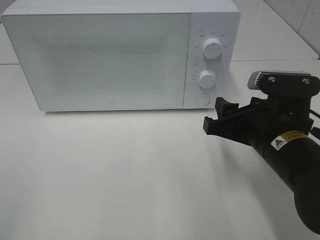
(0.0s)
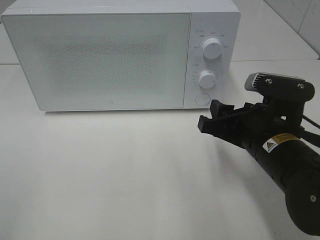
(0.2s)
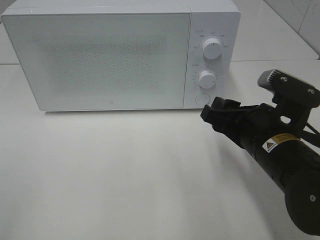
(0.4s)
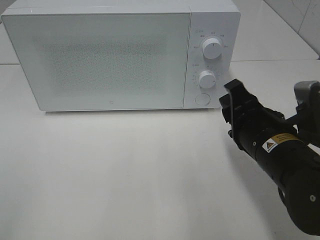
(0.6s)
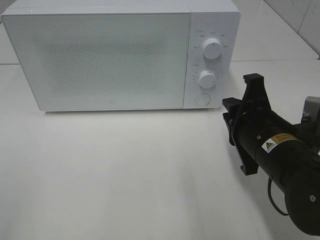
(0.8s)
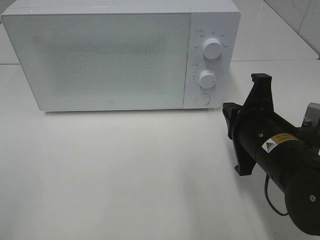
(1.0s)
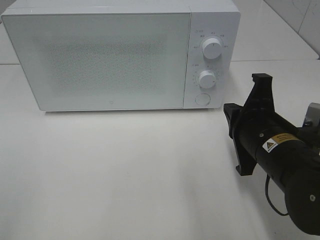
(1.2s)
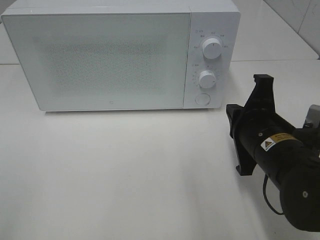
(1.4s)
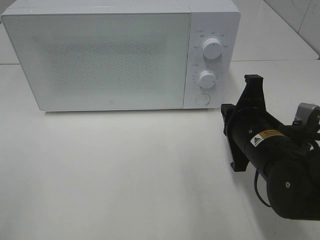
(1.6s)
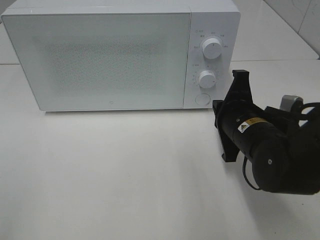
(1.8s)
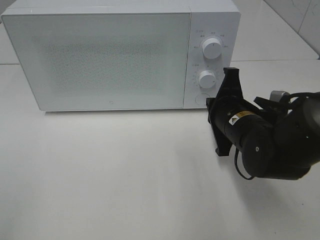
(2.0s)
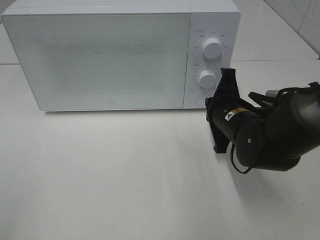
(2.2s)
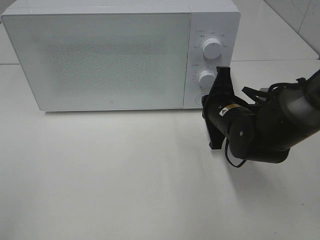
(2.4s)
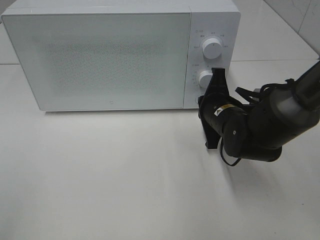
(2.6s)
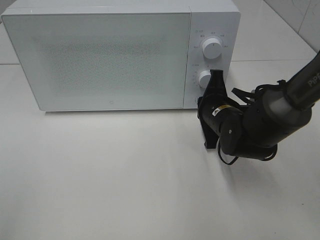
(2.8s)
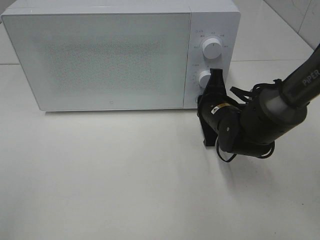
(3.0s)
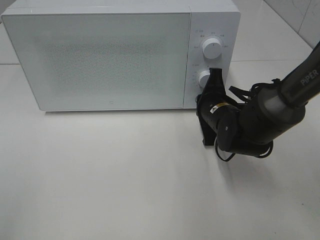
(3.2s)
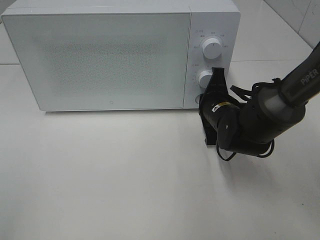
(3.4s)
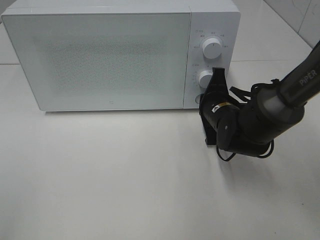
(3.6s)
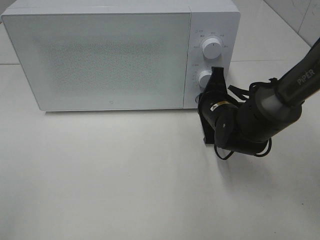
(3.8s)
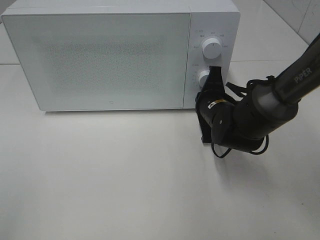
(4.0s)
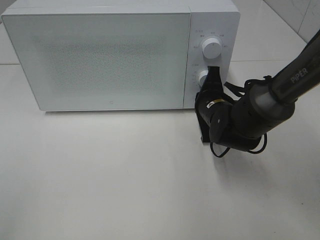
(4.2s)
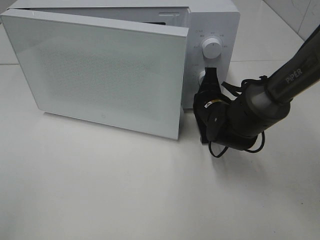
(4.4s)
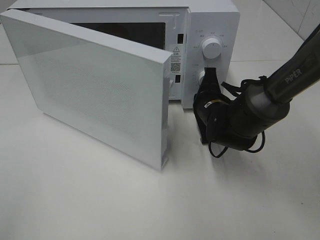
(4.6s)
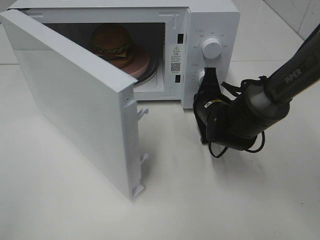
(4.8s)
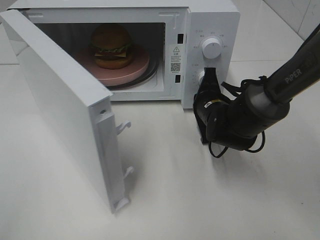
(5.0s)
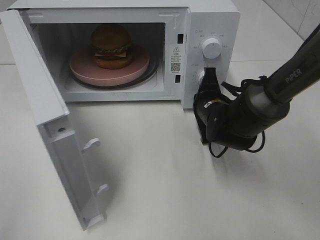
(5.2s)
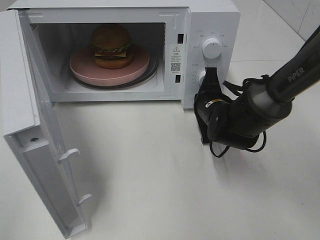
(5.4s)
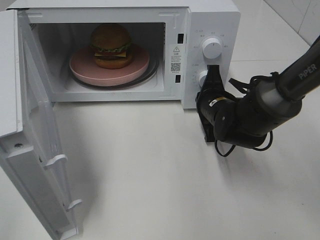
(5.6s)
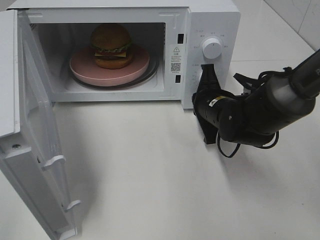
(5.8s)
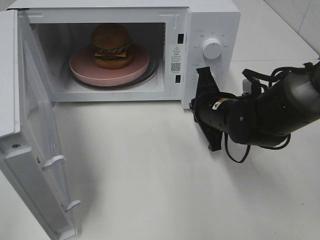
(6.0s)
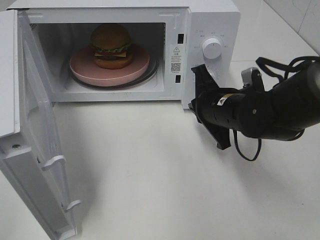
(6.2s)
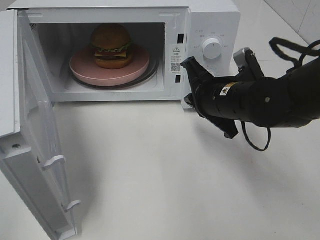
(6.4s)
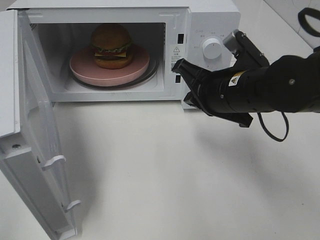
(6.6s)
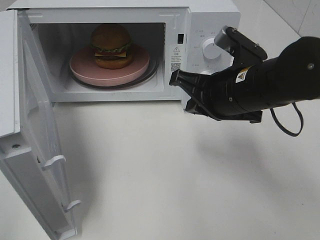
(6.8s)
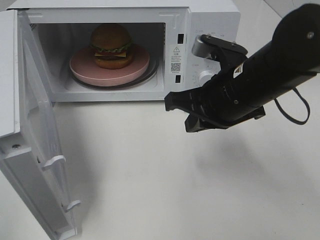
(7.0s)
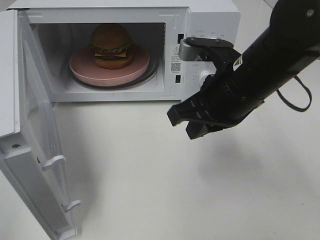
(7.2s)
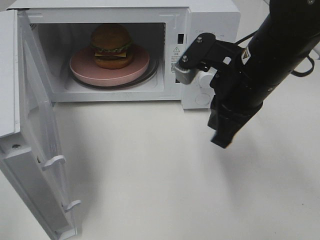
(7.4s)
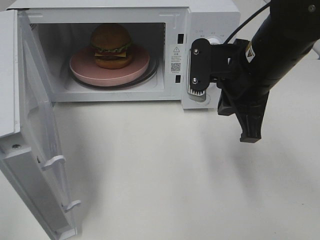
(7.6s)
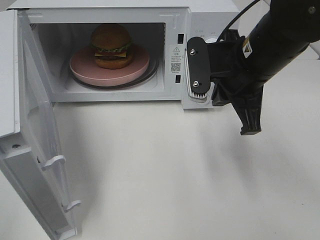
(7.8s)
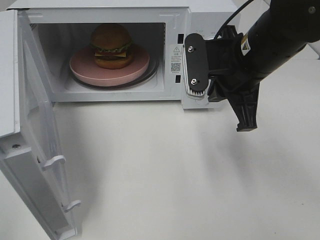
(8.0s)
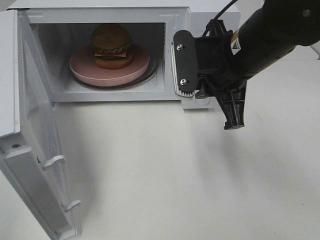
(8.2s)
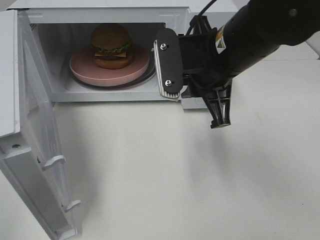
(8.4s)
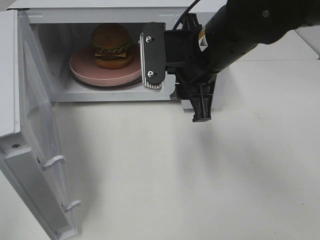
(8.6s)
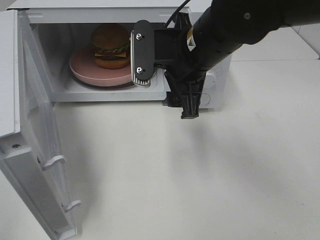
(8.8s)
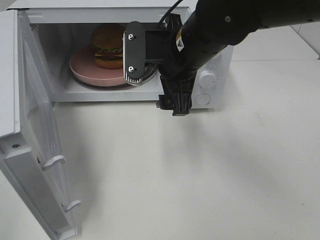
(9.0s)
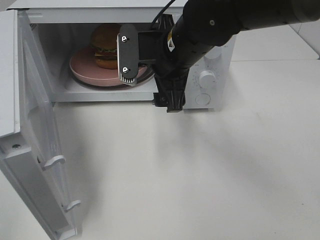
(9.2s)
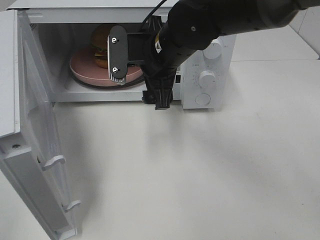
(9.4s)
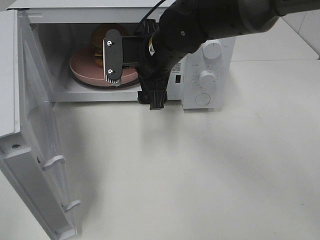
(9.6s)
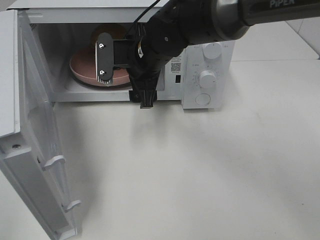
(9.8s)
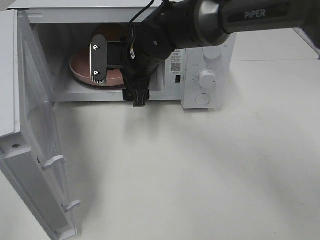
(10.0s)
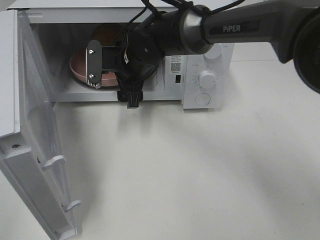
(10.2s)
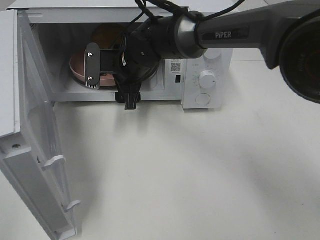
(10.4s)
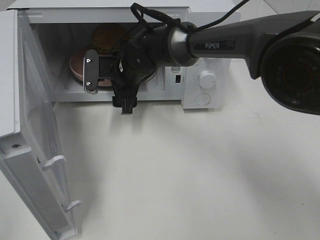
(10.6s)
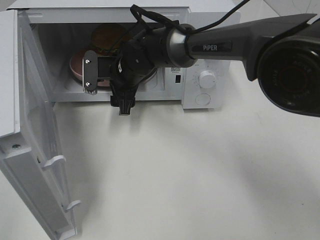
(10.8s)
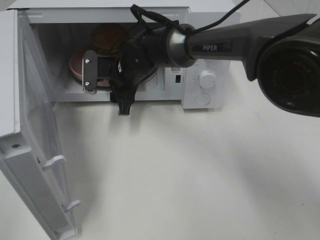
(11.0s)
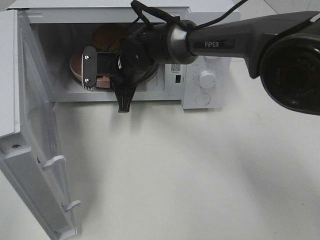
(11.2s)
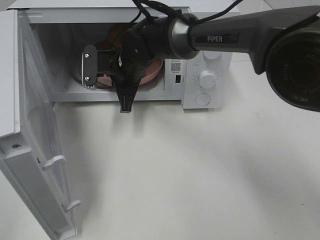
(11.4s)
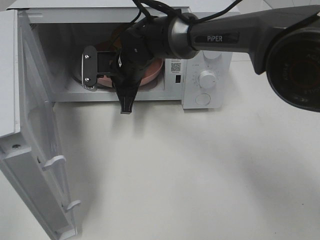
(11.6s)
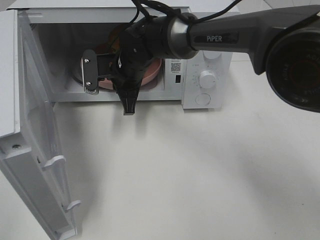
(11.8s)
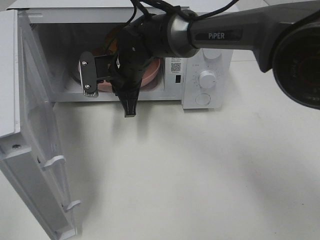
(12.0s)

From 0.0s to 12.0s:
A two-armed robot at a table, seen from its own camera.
Task of the whole recording: Heat the burger.
Step, from 0.0s to 5.8s: Right hand: press the switch.
Step, from 6.0s to 11.4s: Right hand: grab the plate with the hamburger.
From 0.0s to 1.6s: The right gripper closes.
From 1.6s to 3.0s: The right gripper is displaced forward and downward by approximately 10 cm.
From 3.0s to 4.4s: The grippers make only small movements.
From 4.4s to 6.0s: The right gripper shifts by about 5 cm.
From 6.0s to 7.6s: The right gripper goes approximately 15 cm upward.
From 7.6s to 9.0s: The right gripper heads to the left, covering approximately 10 cm, and opens.
From 9.0s to 10.4s: The right gripper shifts approximately 15 cm forward, to the left and downward.
From 10.4s to 12.0s: The right gripper closes.

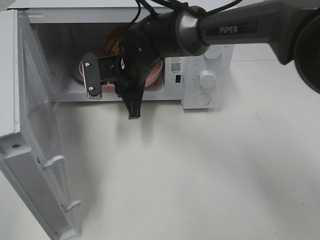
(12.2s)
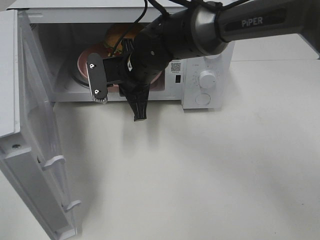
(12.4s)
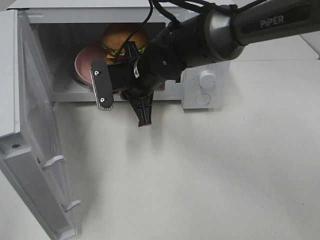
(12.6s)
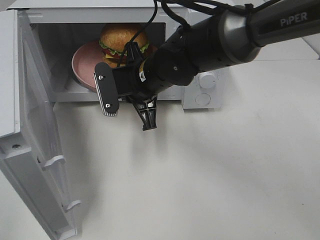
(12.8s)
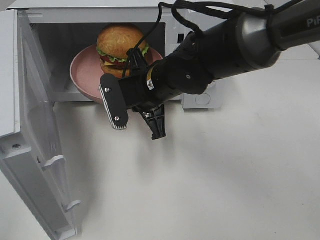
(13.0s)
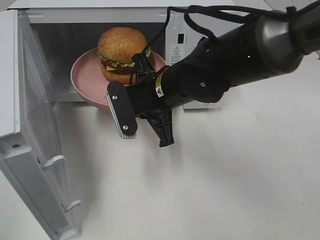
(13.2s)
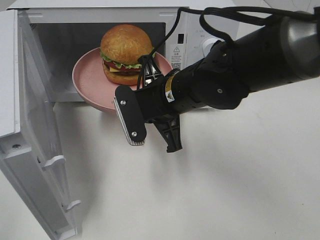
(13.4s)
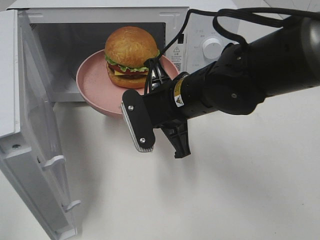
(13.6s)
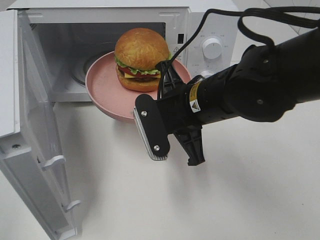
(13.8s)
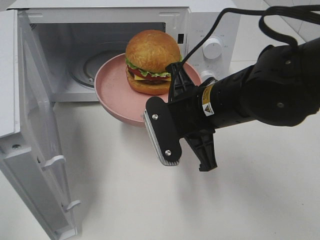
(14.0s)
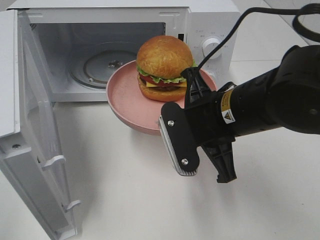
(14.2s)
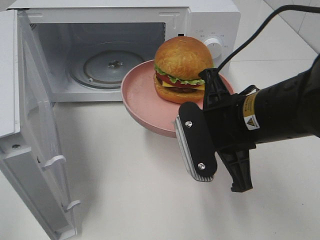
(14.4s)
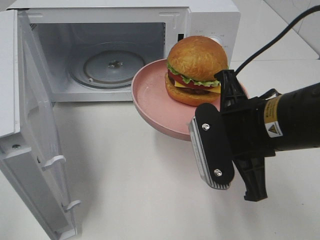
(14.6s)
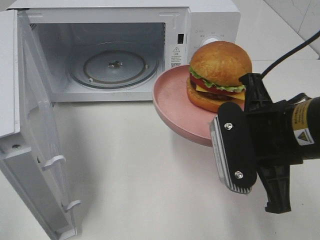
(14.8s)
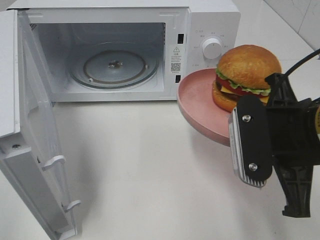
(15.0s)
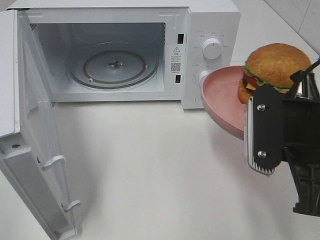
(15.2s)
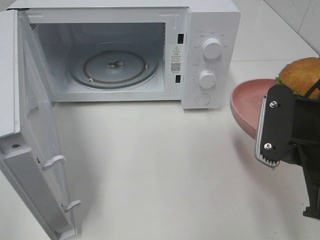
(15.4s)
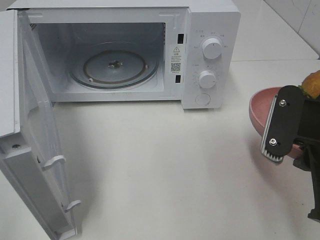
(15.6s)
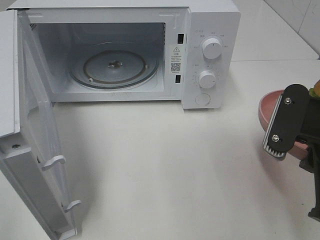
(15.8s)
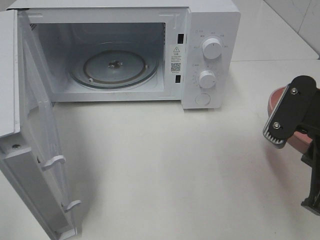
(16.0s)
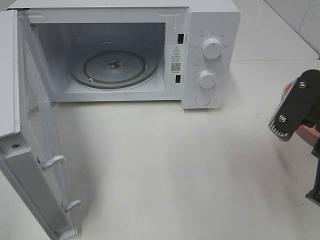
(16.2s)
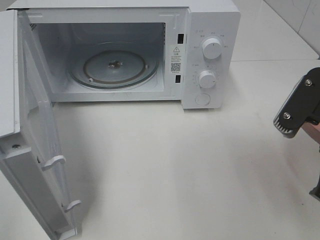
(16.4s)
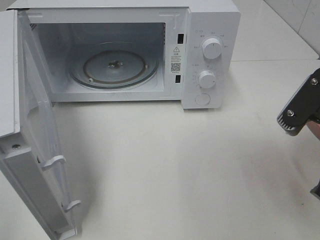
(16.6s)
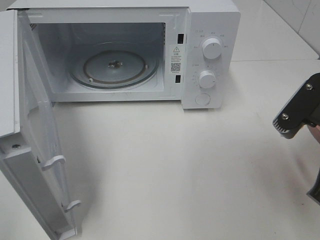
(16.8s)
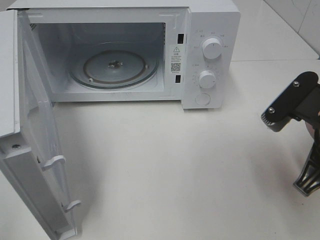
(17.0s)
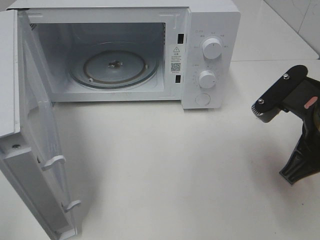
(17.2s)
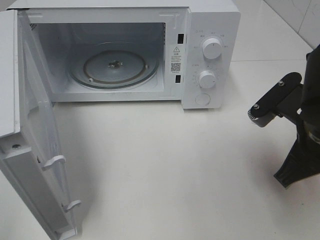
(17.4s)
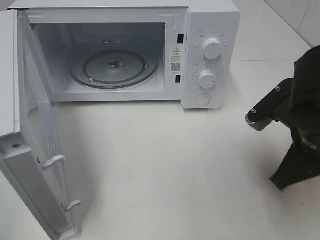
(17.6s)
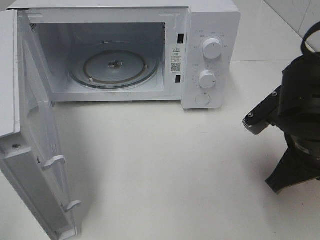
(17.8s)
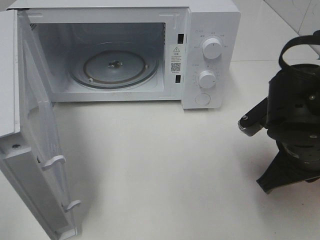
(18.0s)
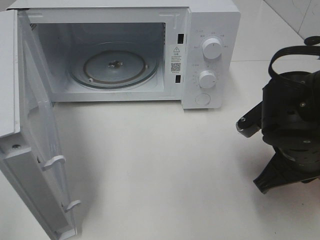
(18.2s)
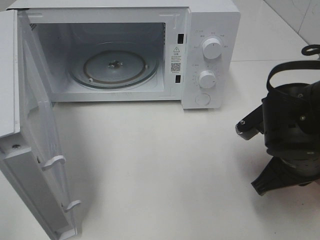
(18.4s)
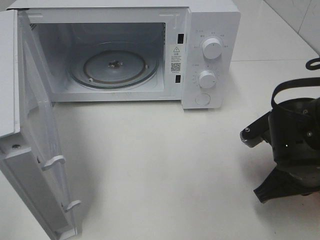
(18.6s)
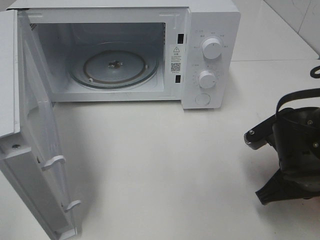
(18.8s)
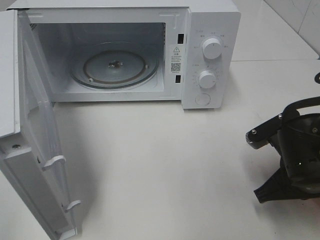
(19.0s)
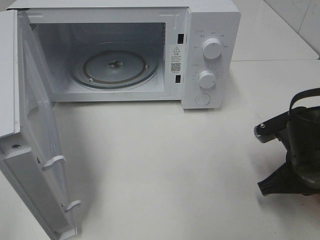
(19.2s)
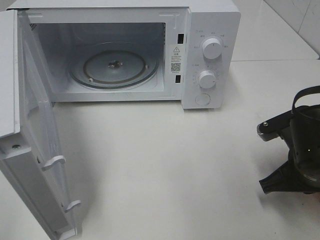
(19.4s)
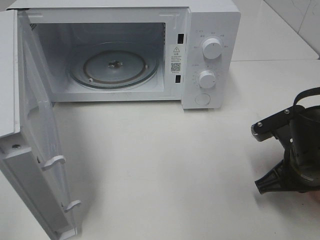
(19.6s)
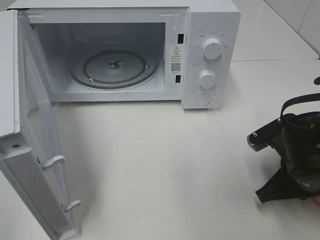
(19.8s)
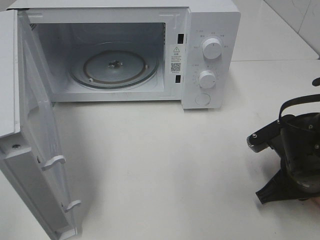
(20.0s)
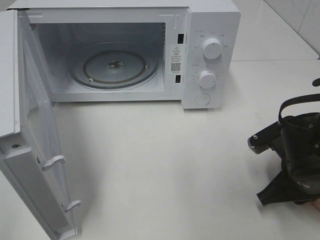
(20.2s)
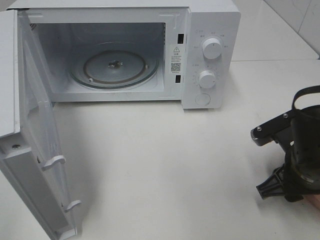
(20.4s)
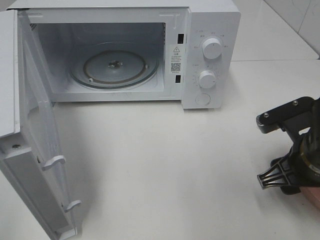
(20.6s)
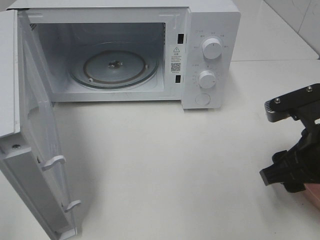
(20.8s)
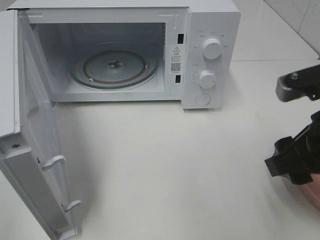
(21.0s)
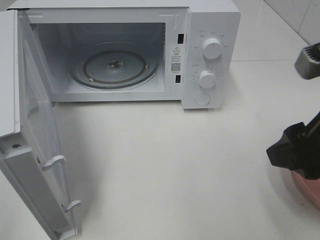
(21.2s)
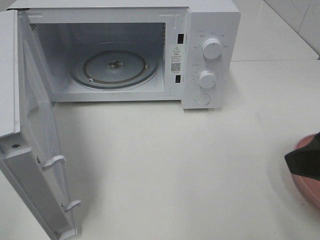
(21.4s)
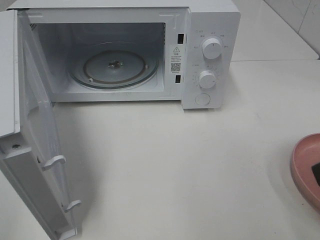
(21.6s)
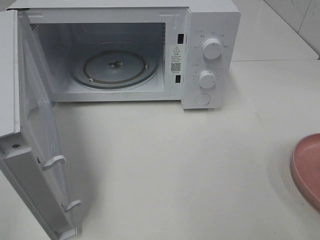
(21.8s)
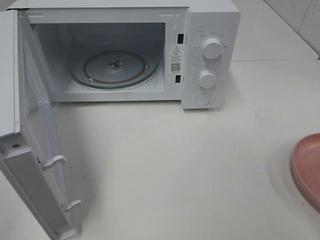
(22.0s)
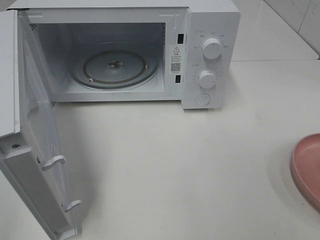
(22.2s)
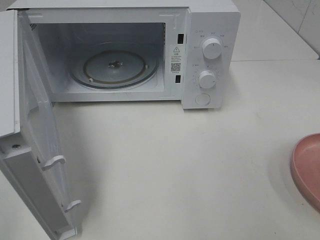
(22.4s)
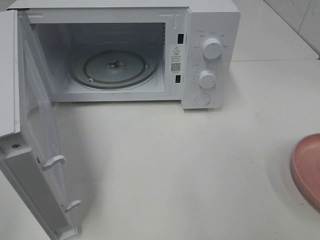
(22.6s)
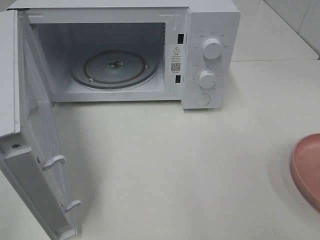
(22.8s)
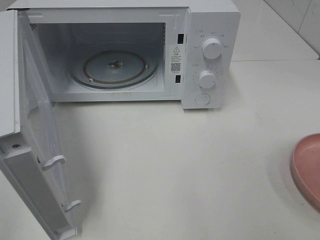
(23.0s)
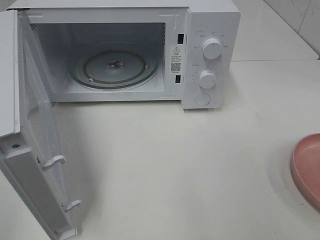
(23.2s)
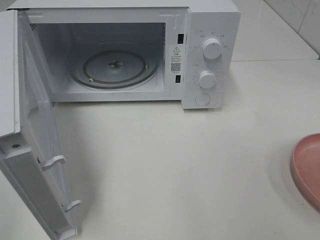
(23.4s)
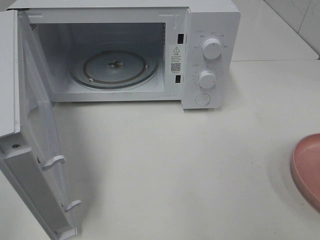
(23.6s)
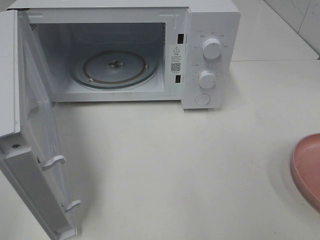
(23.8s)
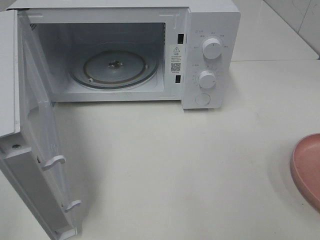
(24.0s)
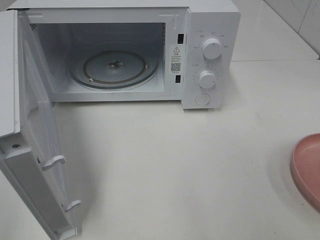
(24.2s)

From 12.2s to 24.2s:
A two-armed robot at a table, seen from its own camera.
Task of the whole recording: Heat the burger.
Step, from 12.2s to 20.2s: Right hand: place the plate on the table.
From 12.2s to 13.8s: The right gripper moves backward and to the right, approximately 15 cm.
From 13.8s to 15.2s: The right gripper shifts roughly 15 cm to the right and backward.
From 16.6s to 18.2s: The right gripper moves downward and forward, some 10 cm.
From 18.2s to 19.8s: The right gripper shifts some 5 cm downward.
From 19.8s to 21.2s: The right gripper travels upward by some 15 cm, and opens.
From 21.2s to 22.6s: The right gripper goes some 15 cm backward and to the right.
From 22.6s to 24.2s: Both grippers stay put.
